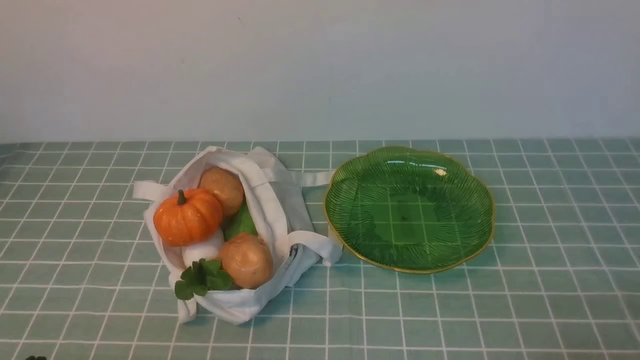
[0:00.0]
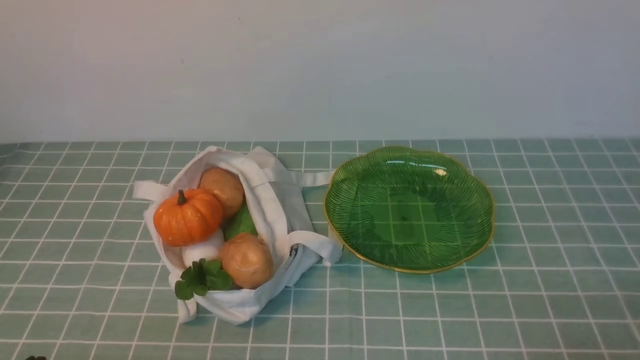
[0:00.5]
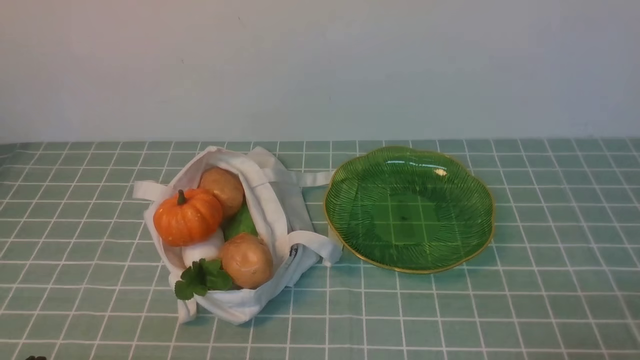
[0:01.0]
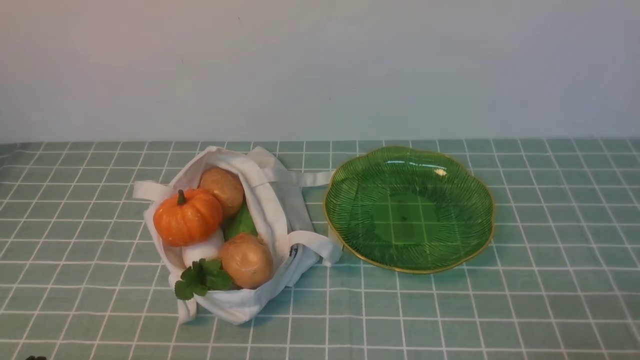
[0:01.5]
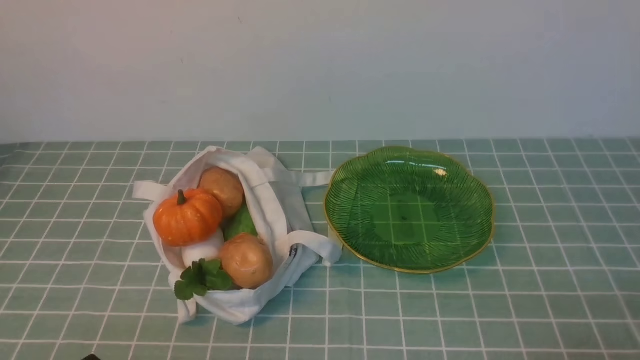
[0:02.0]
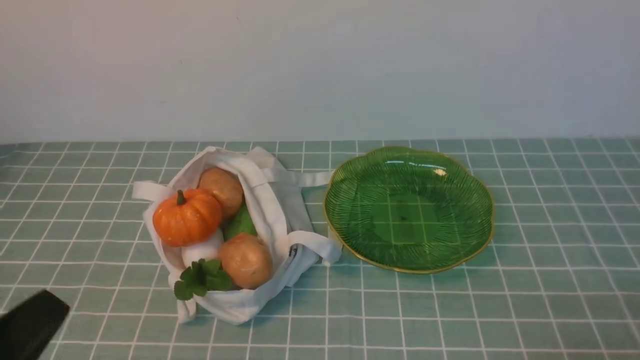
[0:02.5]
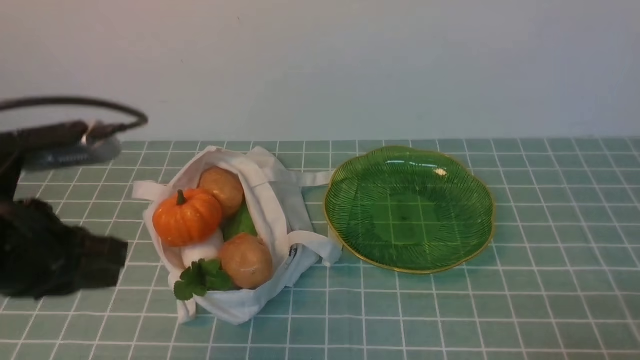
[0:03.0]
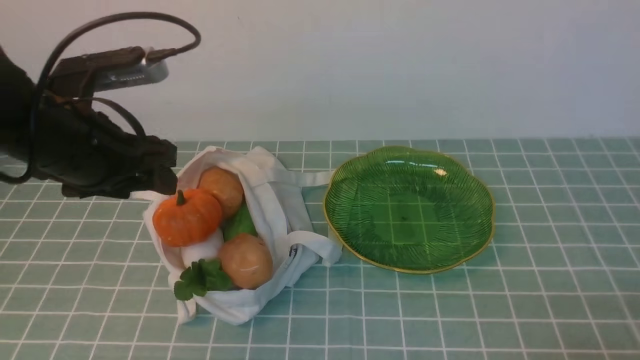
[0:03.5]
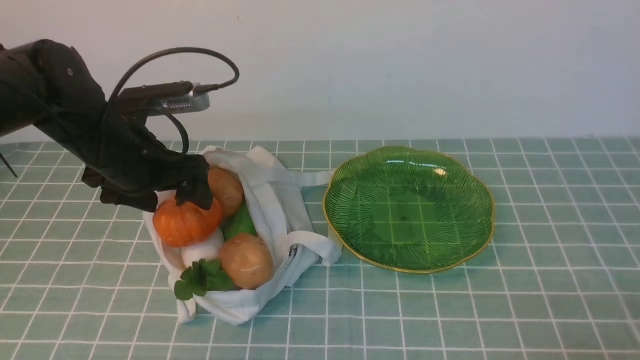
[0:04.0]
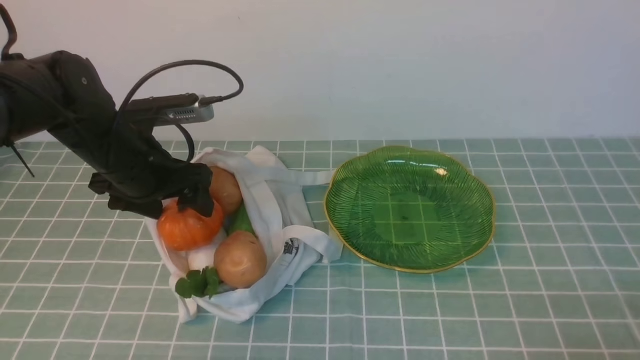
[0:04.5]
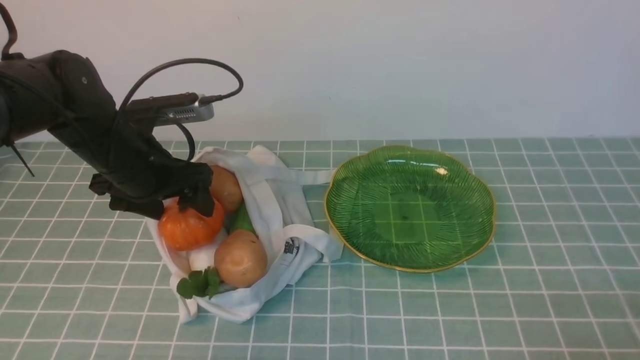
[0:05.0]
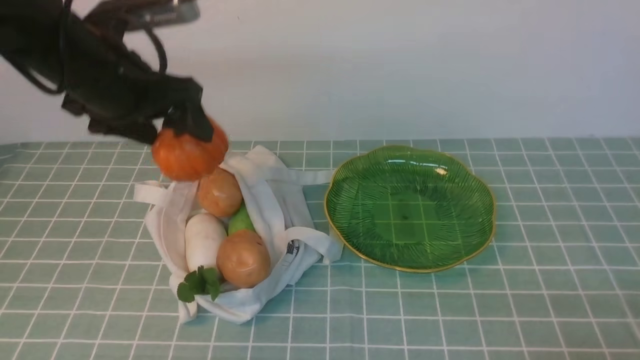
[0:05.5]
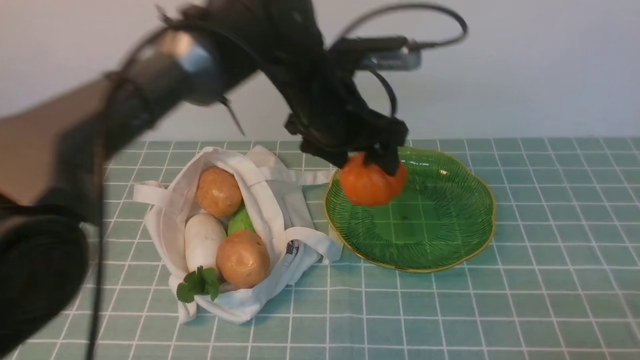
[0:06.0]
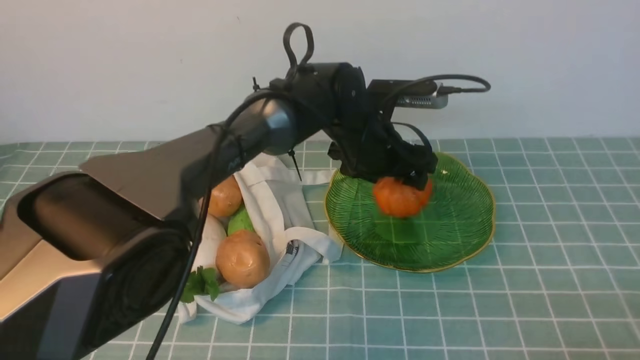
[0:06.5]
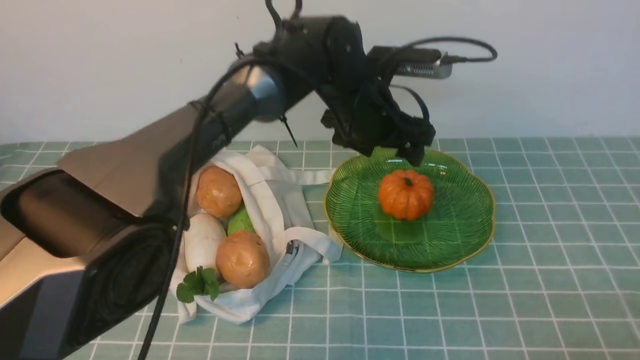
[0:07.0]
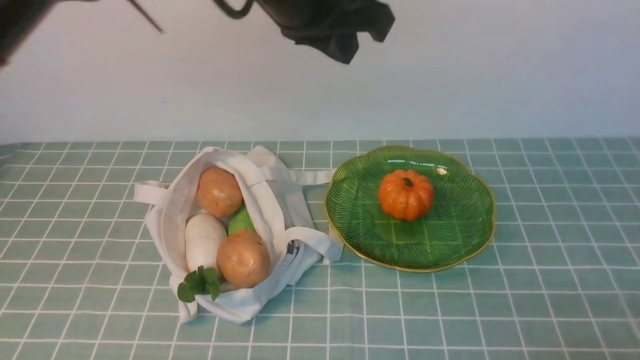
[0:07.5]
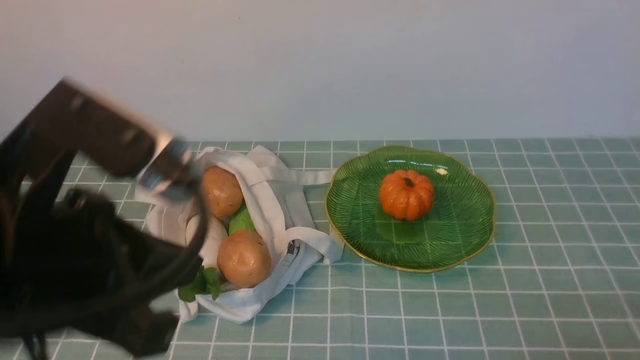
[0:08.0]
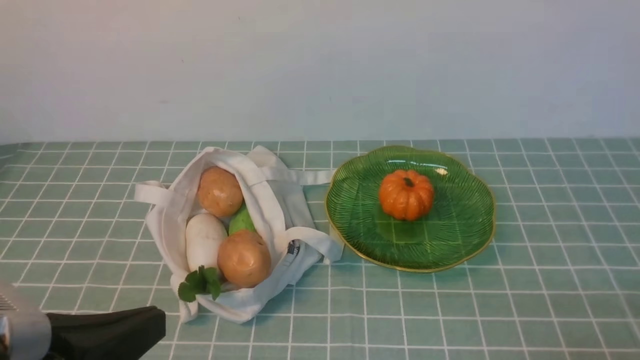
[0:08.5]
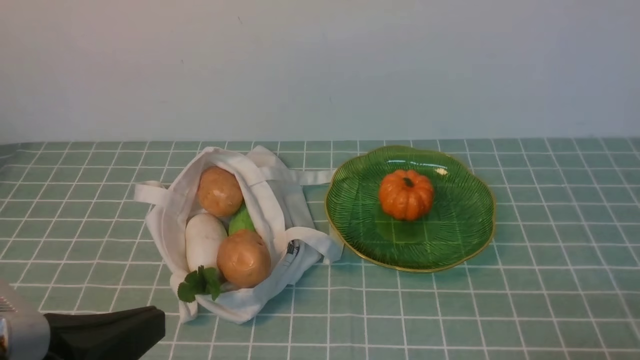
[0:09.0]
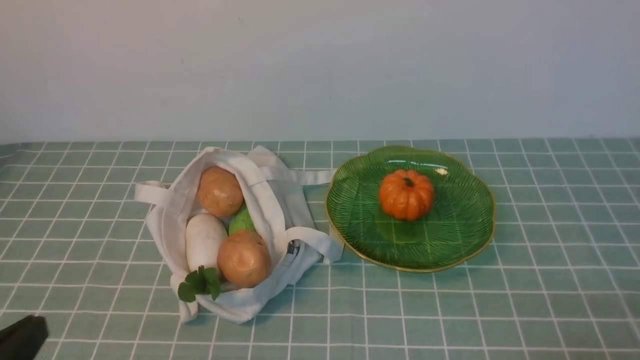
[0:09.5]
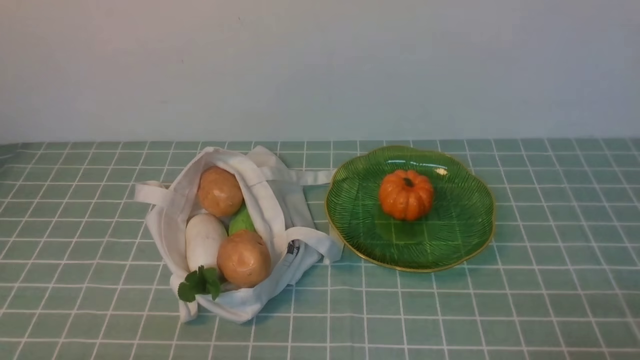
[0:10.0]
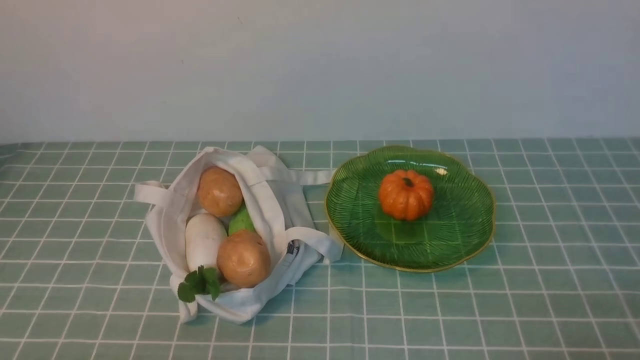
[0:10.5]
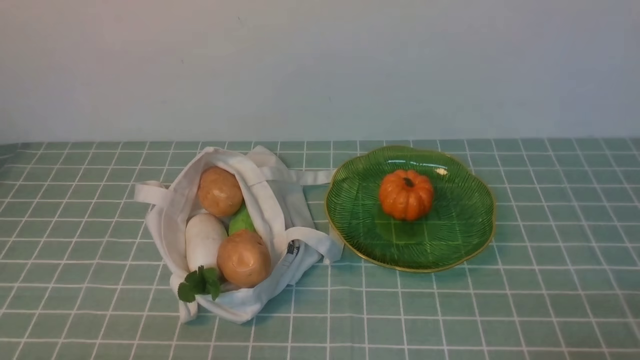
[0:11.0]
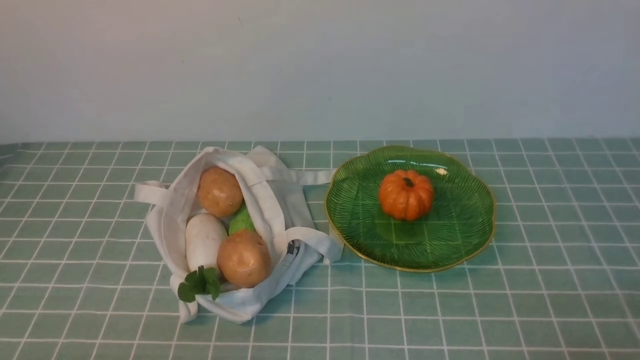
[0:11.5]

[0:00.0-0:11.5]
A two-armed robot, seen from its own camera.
Task of the whole recording: take vegetables from cloth bag on blue coffee tablecloth place on plate.
Step, 0:00.0 to 0:04.5: Grasp the pumpkin with left gripper.
Step, 0:05.0 to 0:07.0: Place the pumpkin on the plate with left gripper.
0:02.0 to 0:04.0: The left gripper goes some 30 cm forward, and opens.
0:04.0 to 0:06.0: The left gripper shifts about 15 cm to the right.
0:06.0 to 0:07.5: The left gripper heads upward, covering roughly 10 cm, and closes up.
0:07.5 to 0:09.5: The left gripper is displaced backward, to the left and downward by about 40 cm.
0:09.5 to 0:11.5: The left gripper goes some 10 cm downward.

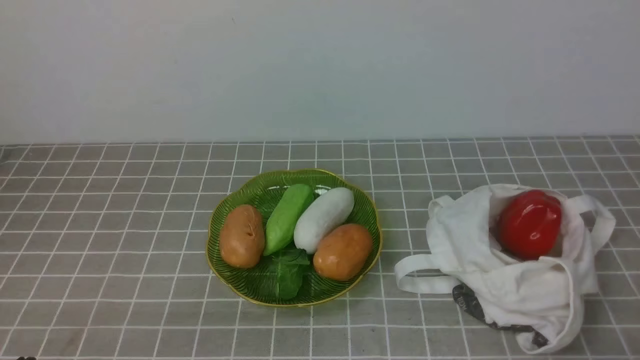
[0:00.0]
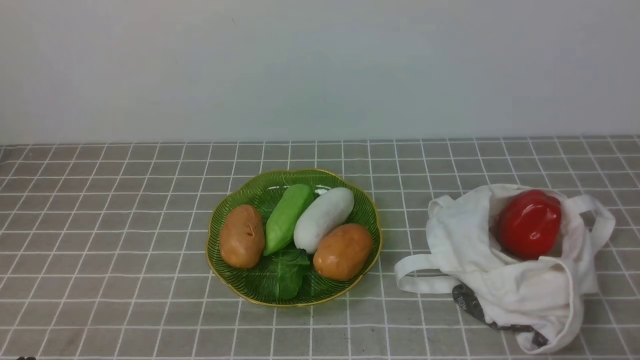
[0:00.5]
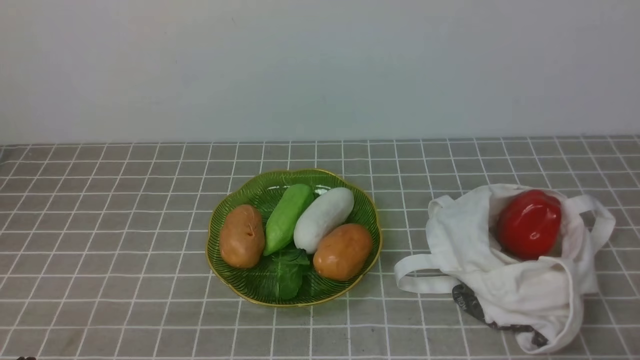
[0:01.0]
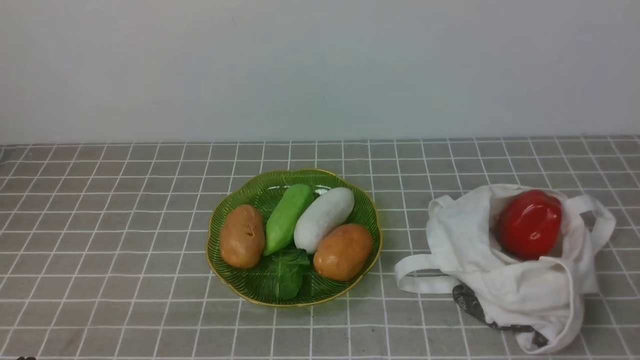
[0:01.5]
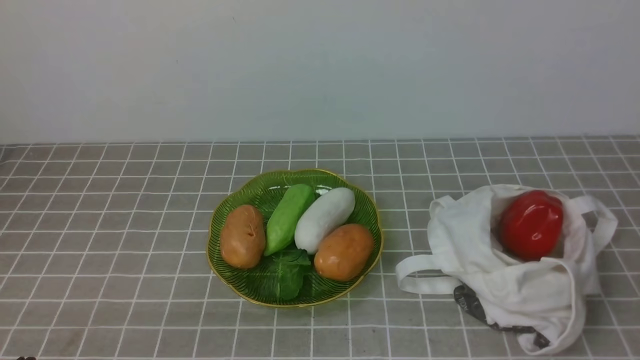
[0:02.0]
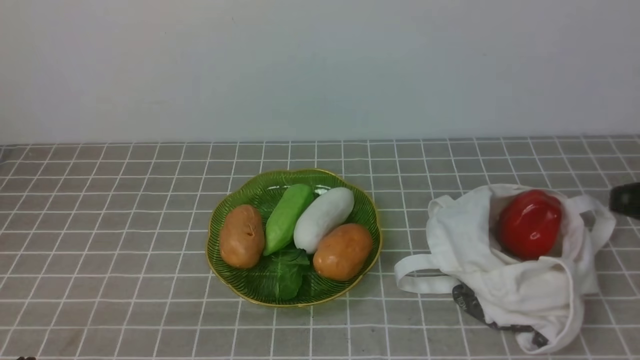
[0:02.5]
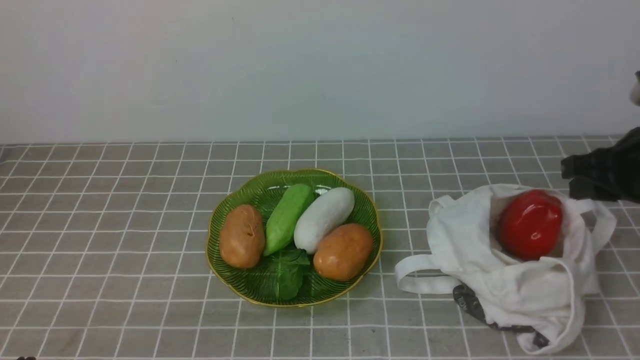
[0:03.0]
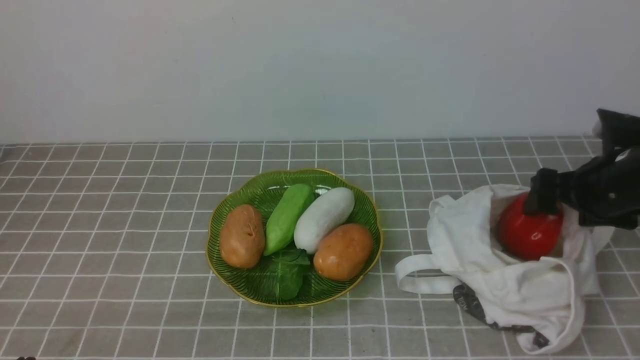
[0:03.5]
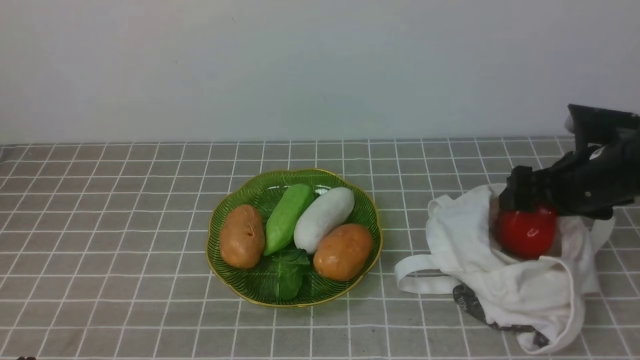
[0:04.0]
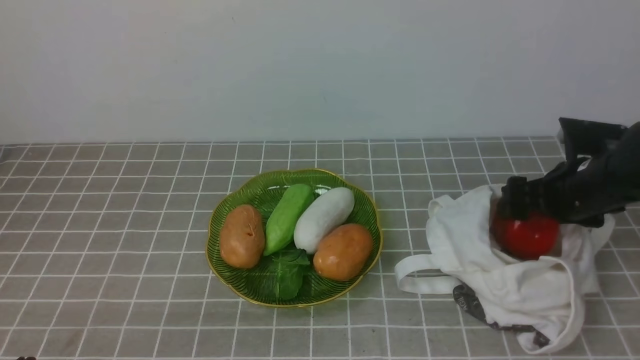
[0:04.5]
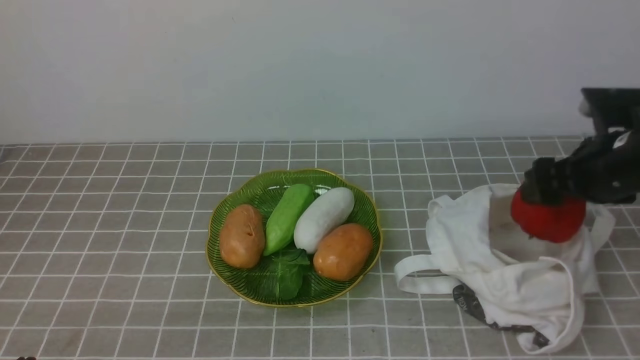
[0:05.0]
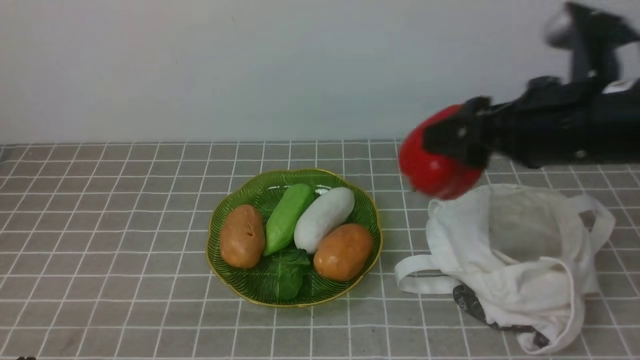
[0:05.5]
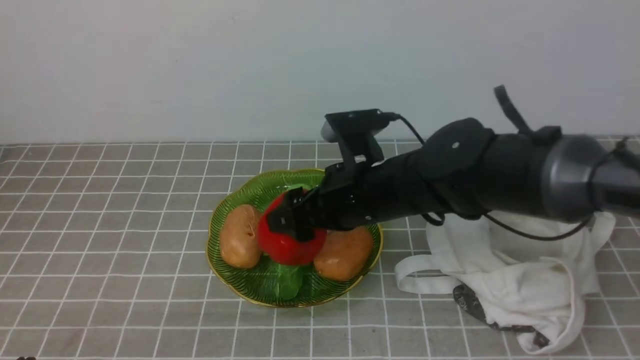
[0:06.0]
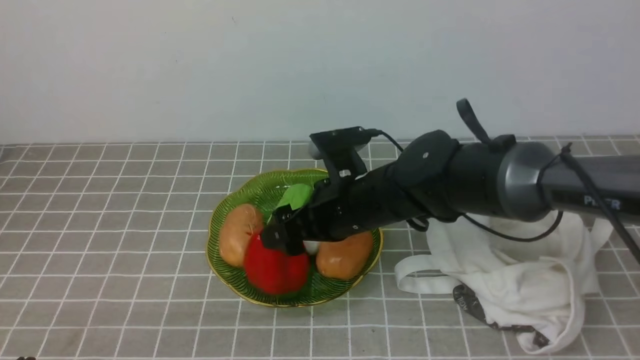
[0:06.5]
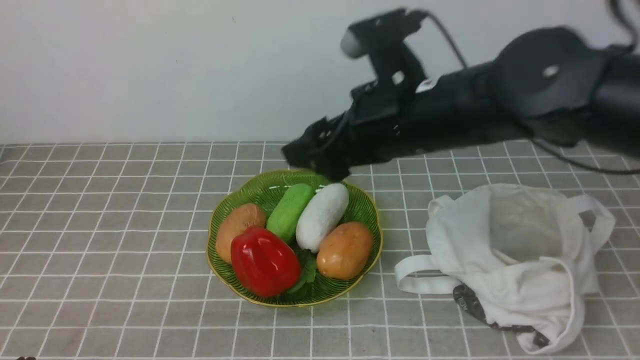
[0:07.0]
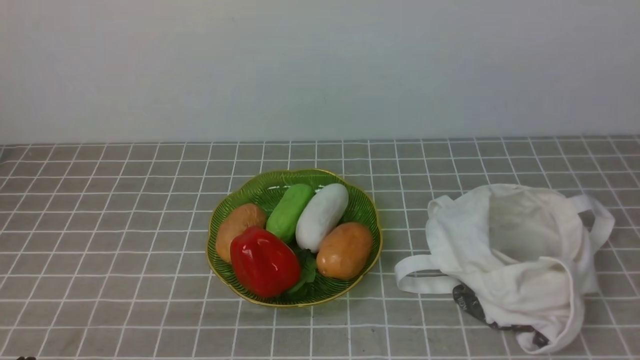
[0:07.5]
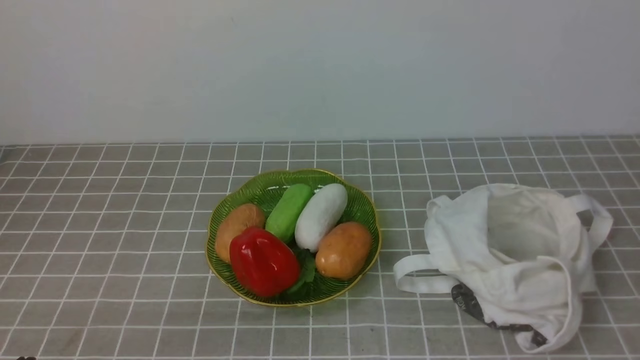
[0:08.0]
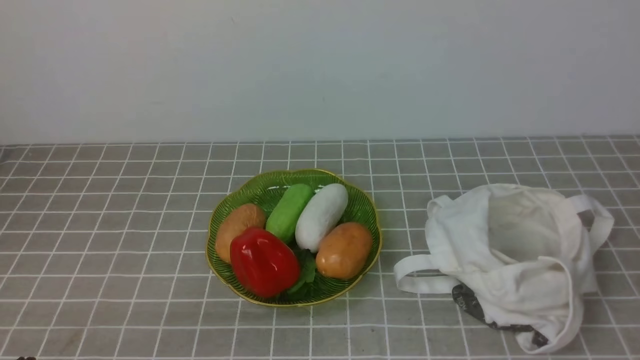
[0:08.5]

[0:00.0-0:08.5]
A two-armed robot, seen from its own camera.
Task of the whole recording: take vegetables from bag on grey coffee tablecloth place on plate.
Step, 0:00.0 to 0:04.5: Grasp the bell pepper with right gripper.
Step, 0:05.0 to 0:07.0: Place the bell pepper on the plate with right gripper.
0:02.0 to 0:04.0: The right gripper is displaced forward by roughly 30 cm, and opens its fingers.
0:04.0 to 0:06.5: The right gripper goes about 25 cm to the left.
0:06.5 to 0:08.5: The right gripper is displaced backward and to the right by roughly 40 cm, and closes up.
